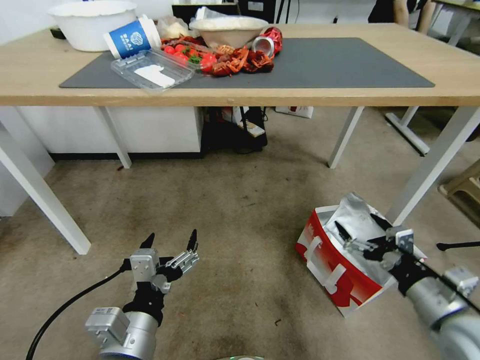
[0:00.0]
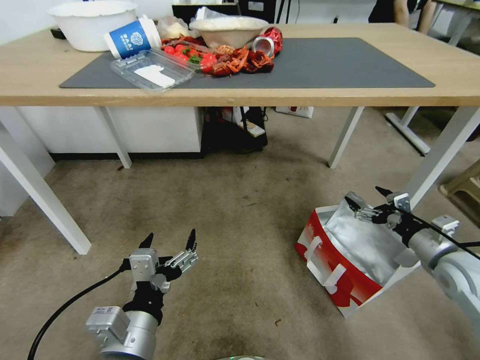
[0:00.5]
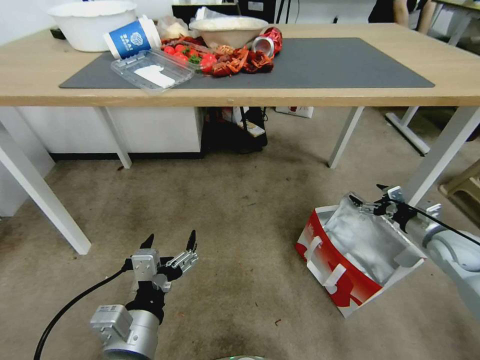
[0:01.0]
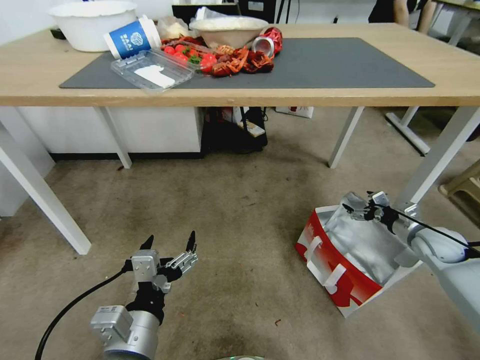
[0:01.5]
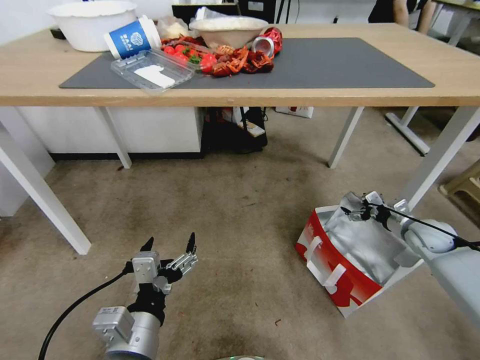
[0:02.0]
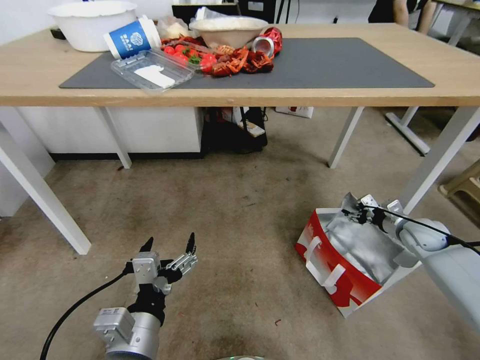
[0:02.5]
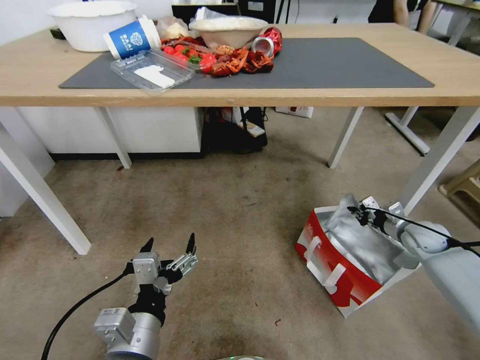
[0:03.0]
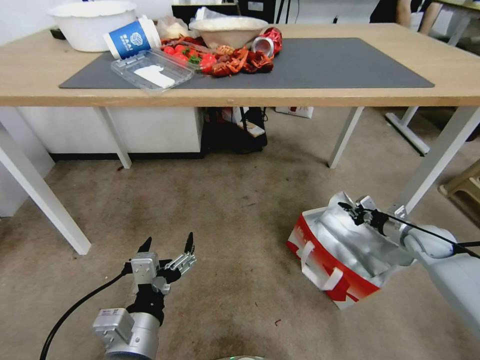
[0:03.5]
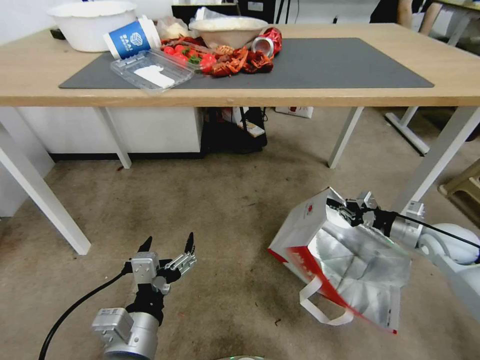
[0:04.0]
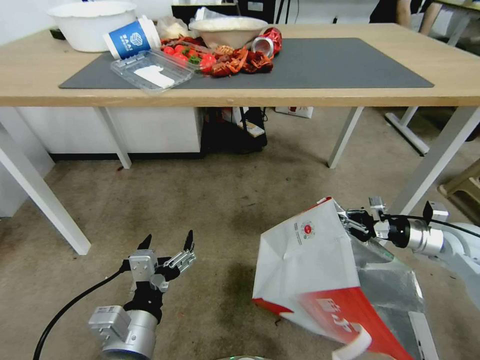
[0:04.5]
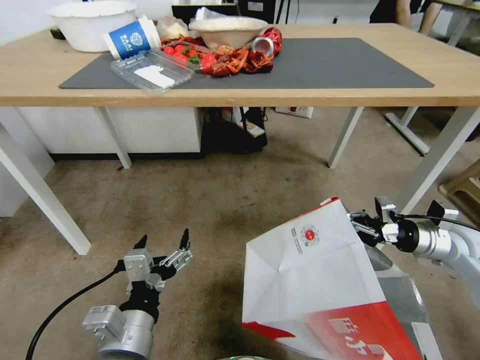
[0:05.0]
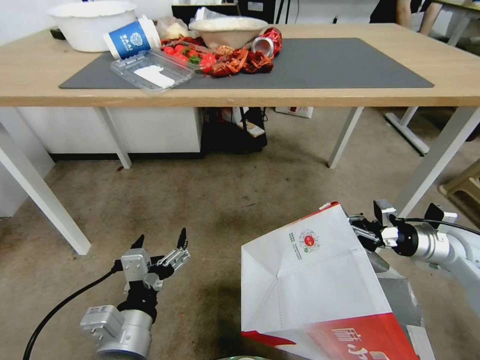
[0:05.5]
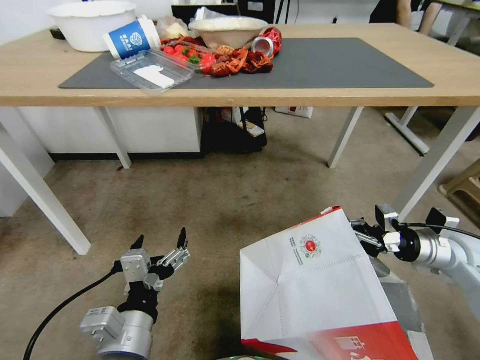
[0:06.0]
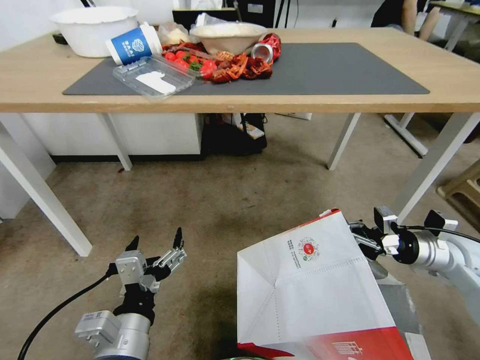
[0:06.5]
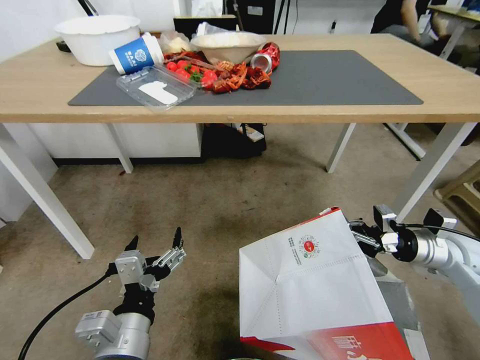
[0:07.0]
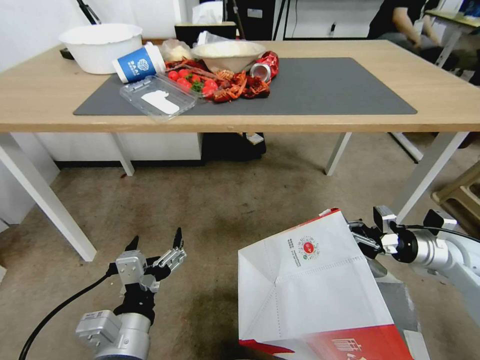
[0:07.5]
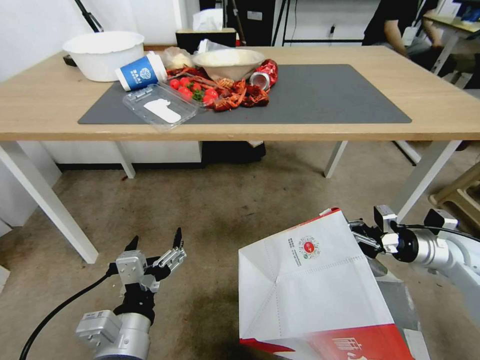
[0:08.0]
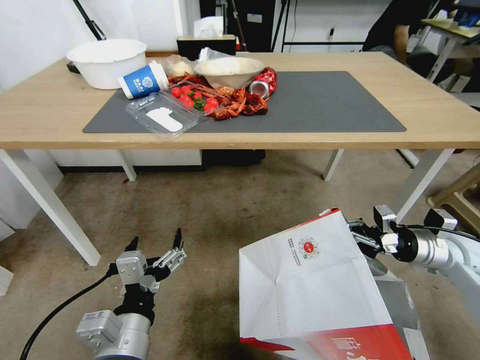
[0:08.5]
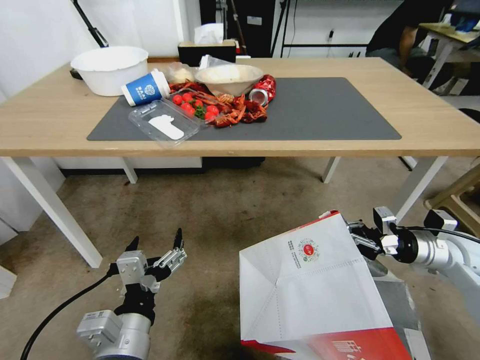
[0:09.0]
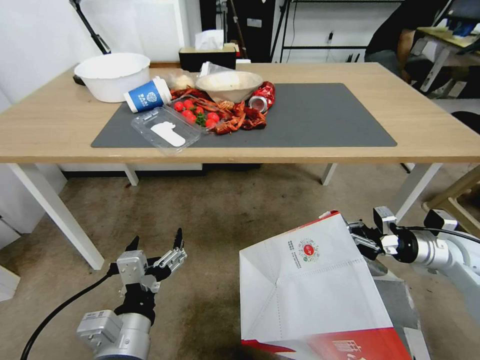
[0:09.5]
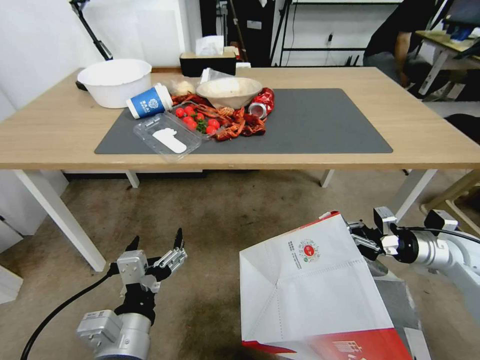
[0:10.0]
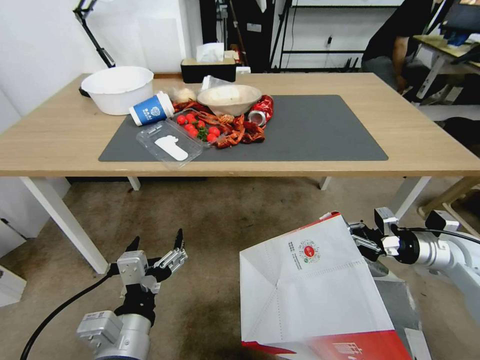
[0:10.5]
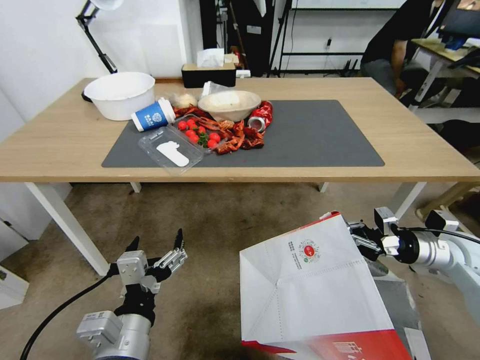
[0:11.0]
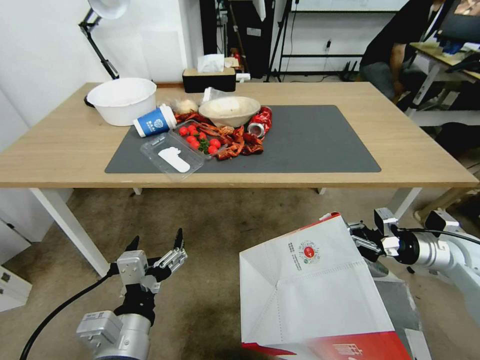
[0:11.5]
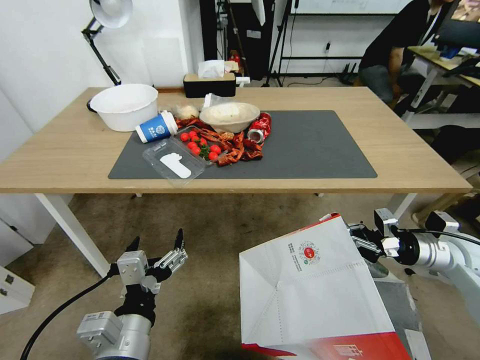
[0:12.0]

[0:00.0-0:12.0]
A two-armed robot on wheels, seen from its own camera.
Task of the whole recording: Pick up the food delivery bag from the floor and place it on the table.
0:00.0 to 0:02.0: The right gripper travels forward, to the right and downward by some 30 cm.
0:02.0 to 0:04.0: The right gripper moves upward, about 5 cm, and closes its fingers.
0:04.0 to 0:06.0: The right gripper shifts by some 5 cm.

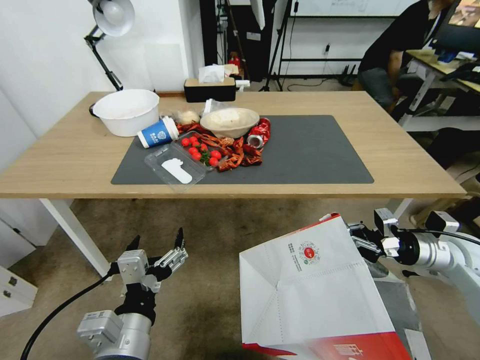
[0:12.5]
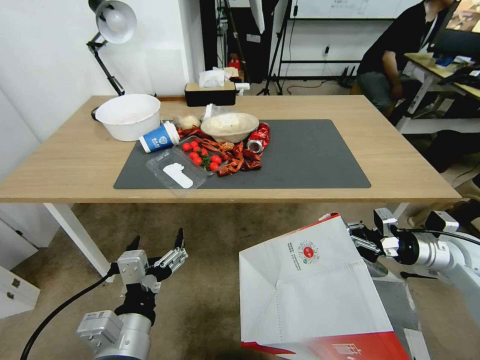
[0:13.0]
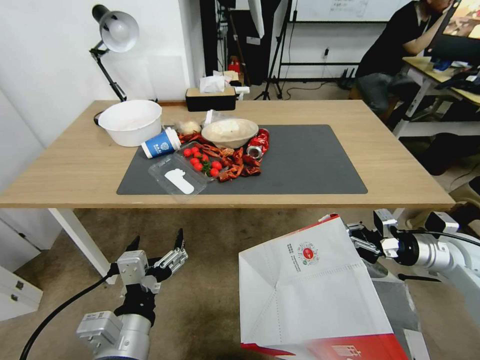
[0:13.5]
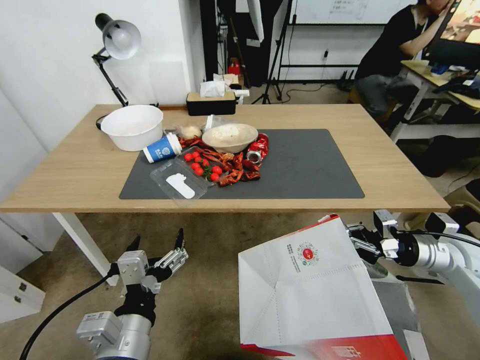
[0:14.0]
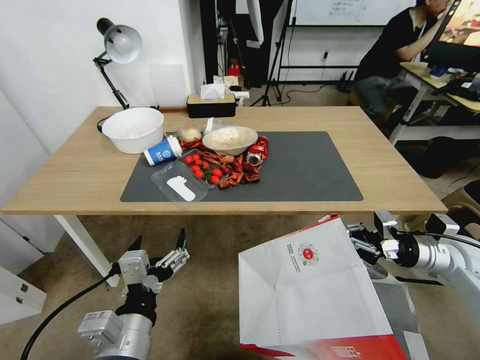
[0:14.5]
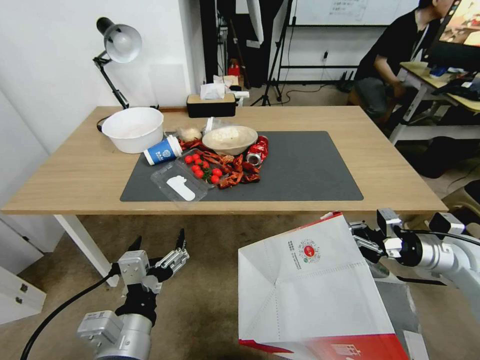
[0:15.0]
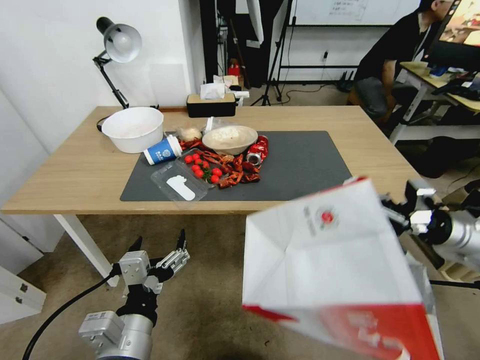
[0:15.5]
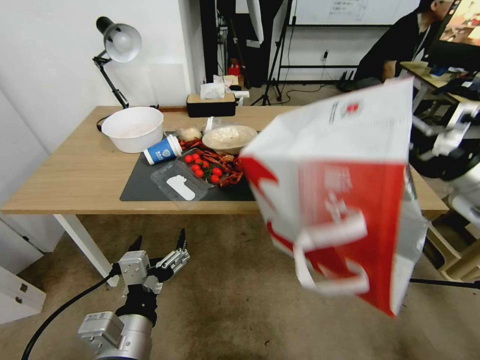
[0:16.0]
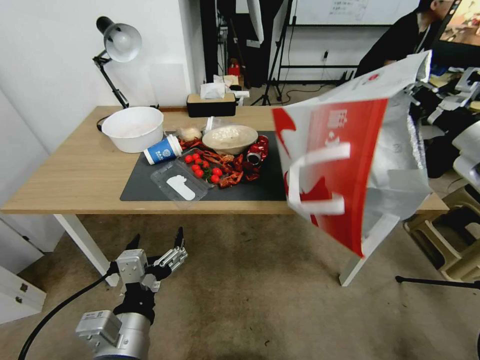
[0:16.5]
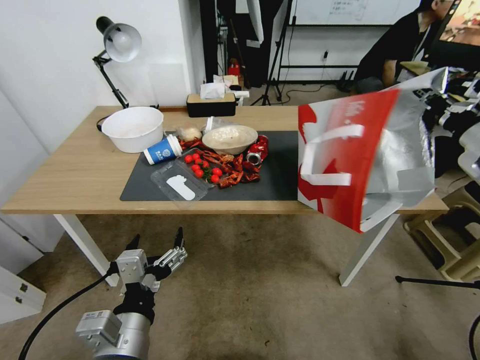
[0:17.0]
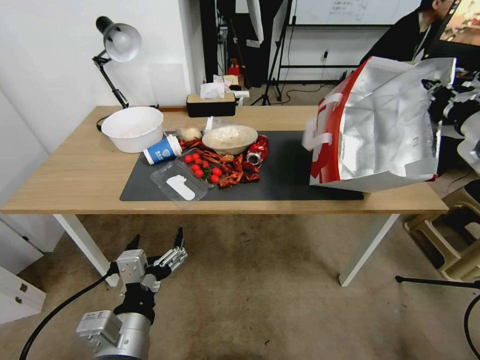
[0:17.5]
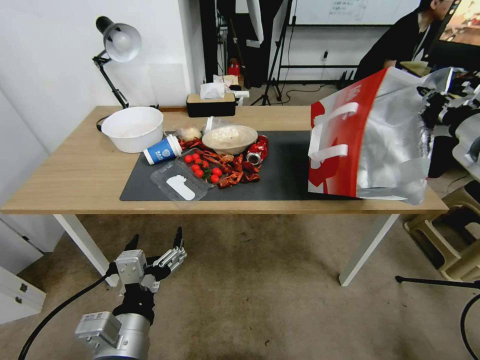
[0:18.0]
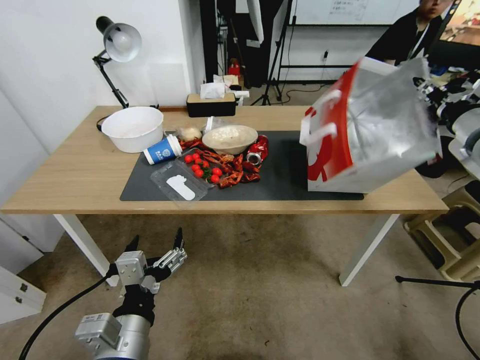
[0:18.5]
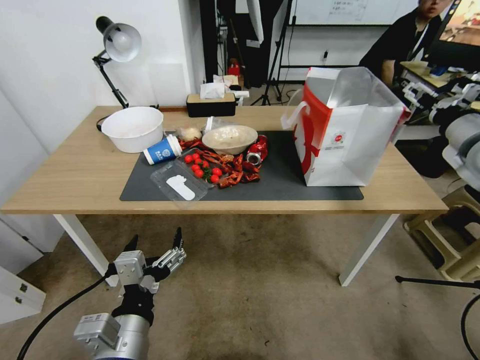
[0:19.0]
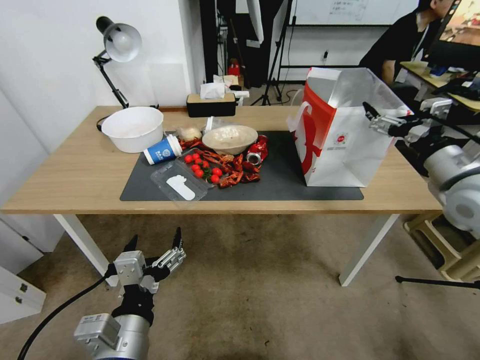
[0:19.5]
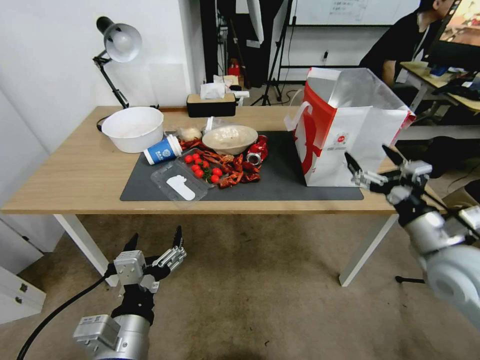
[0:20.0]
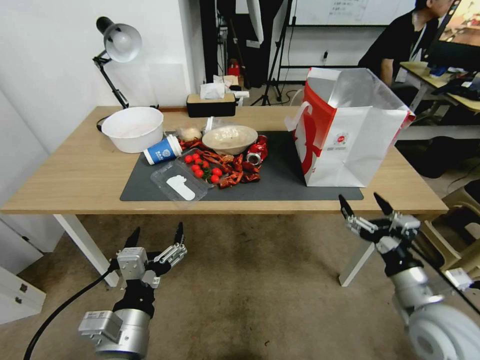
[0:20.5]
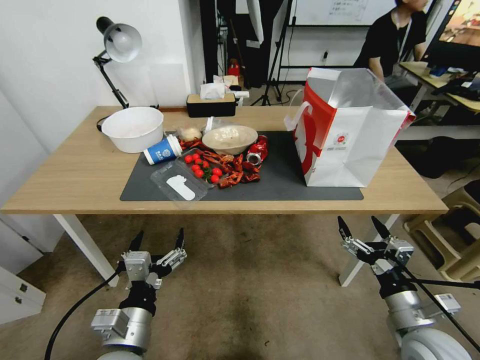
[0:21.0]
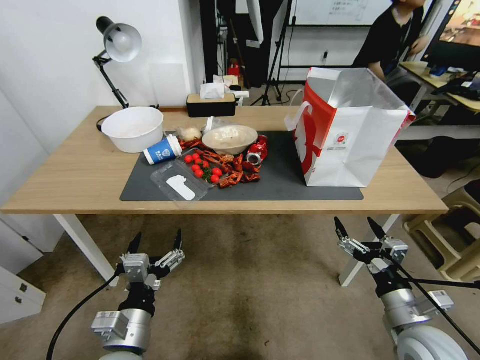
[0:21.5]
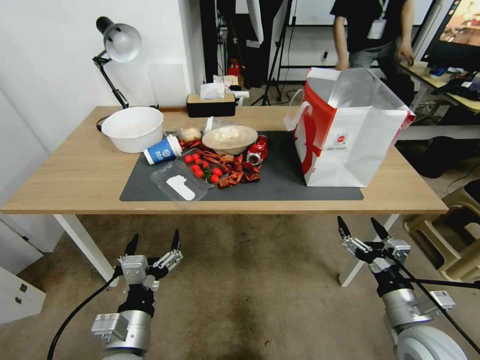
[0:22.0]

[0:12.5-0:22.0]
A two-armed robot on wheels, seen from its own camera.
Task of the whole recording: Pick up the food delivery bag from the floor and place it on the table.
0:14.5 to 0:16.5: The right gripper shifts roughly 15 cm upward.
0:16.5 to 0:18.0: The right gripper travels forward by roughly 5 cm.
0:18.0 to 0:20.0: The right gripper goes approximately 20 cm downward, backward and to the left, and opens.
0:20.0 to 0:22.0: The left gripper heads downward, covering about 10 cm. Meanwhile the right gripper heads downward and backward, covering approximately 15 cm.

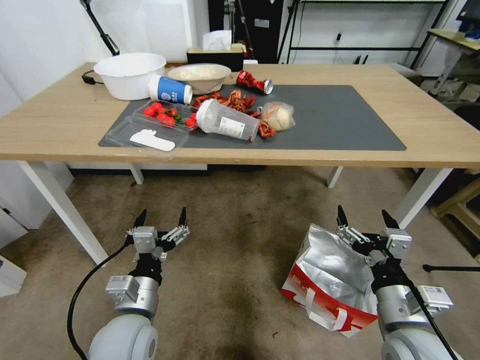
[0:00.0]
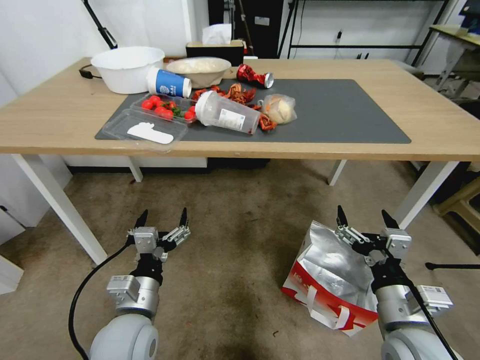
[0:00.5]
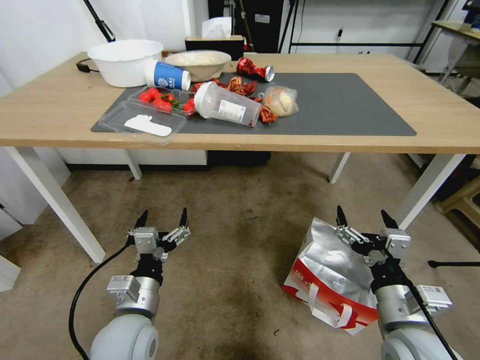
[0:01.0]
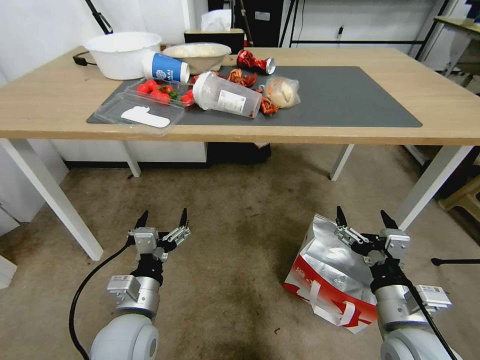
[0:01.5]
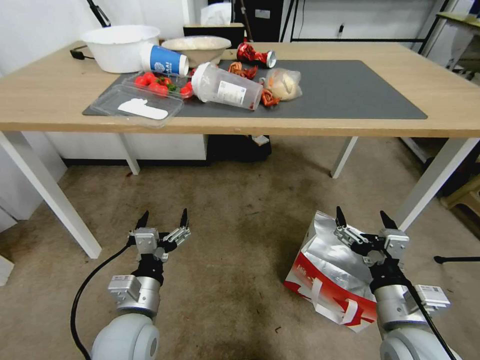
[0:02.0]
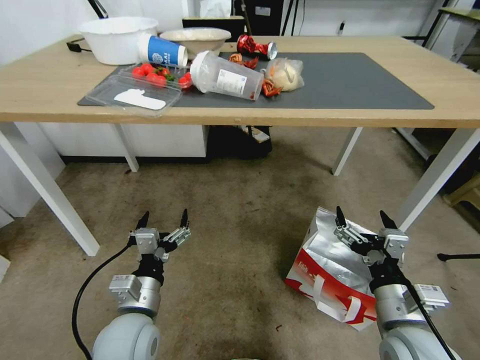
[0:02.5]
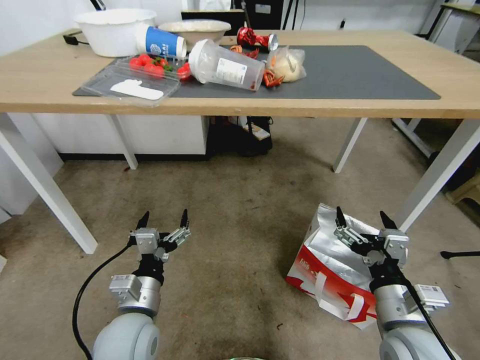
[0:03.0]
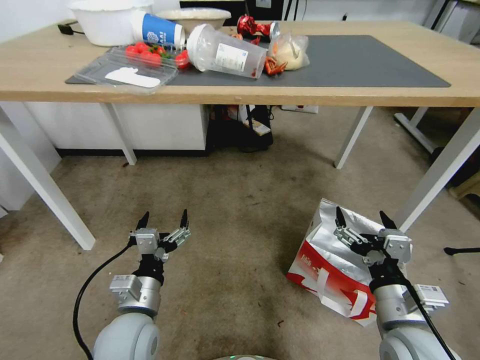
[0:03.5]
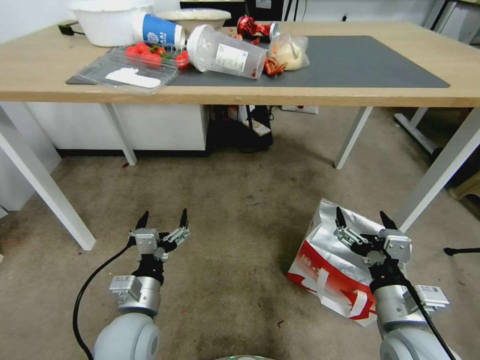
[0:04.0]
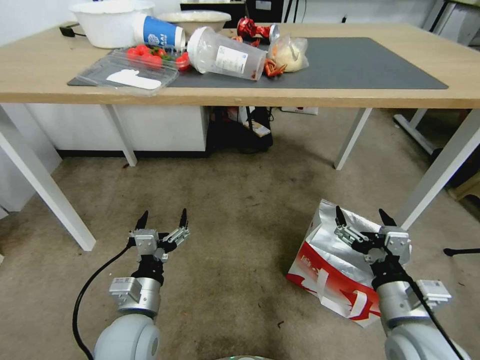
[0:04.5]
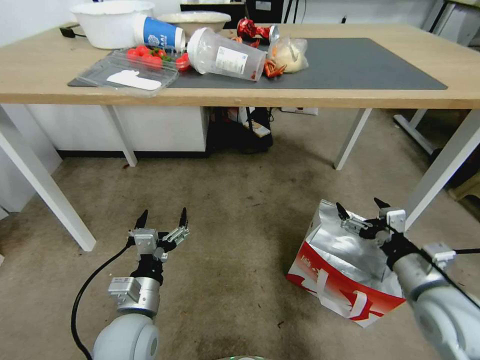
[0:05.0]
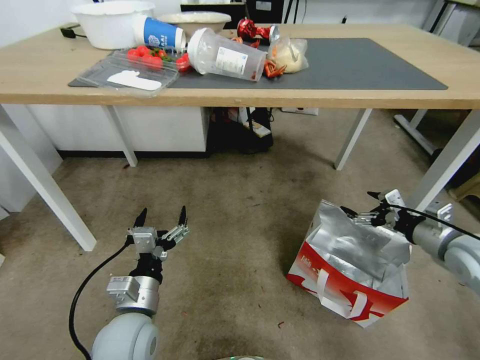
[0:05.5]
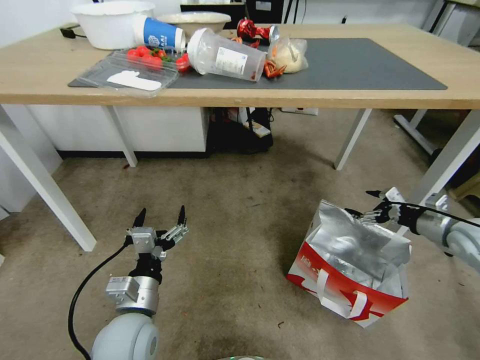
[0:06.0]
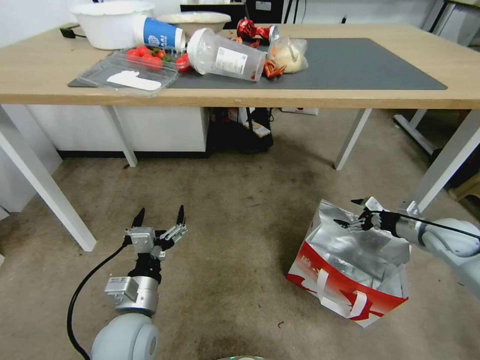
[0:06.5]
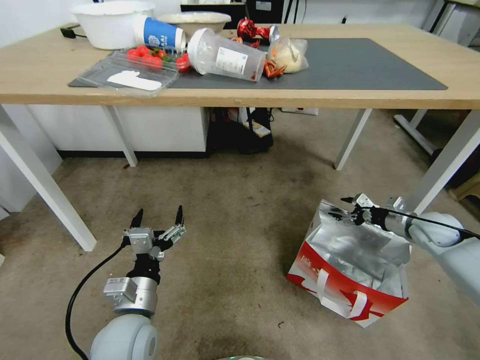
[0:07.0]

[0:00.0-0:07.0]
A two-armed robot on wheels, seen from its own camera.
Task of the whole recording: Pick up the food delivery bag from the floor and place it on the table.
0:03.5 to 0:05.0: The right gripper is displaced to the right by some 5 cm.
0:05.0 to 0:07.0: The right gripper shifts about 25 cm forward and to the right.
